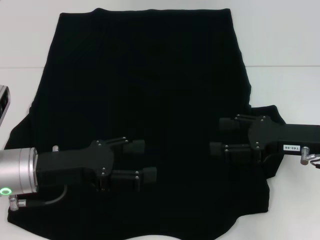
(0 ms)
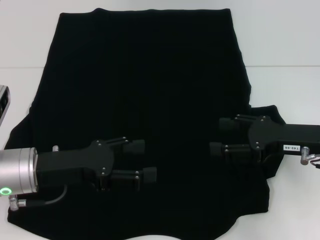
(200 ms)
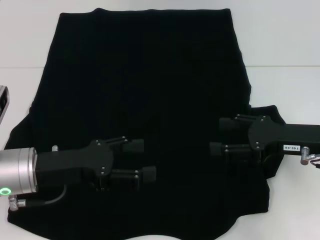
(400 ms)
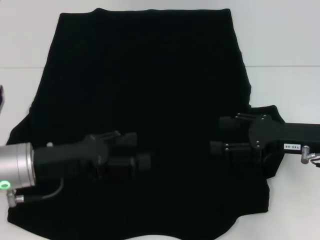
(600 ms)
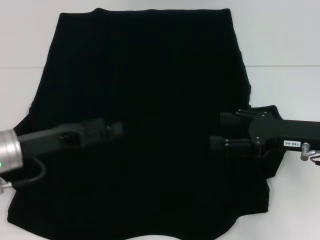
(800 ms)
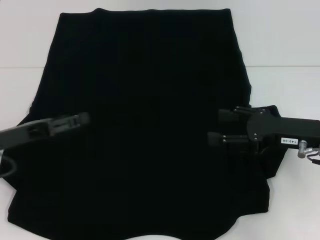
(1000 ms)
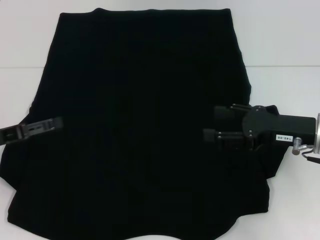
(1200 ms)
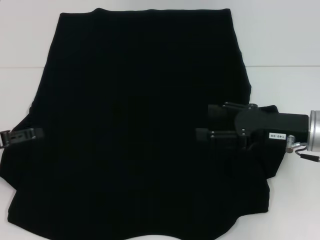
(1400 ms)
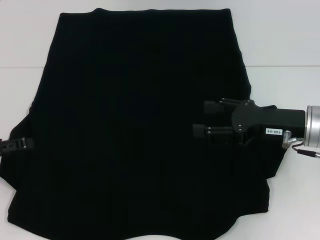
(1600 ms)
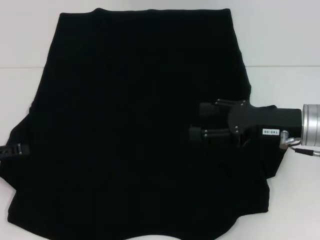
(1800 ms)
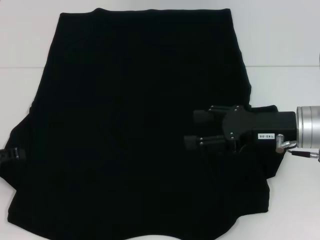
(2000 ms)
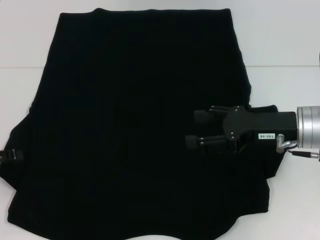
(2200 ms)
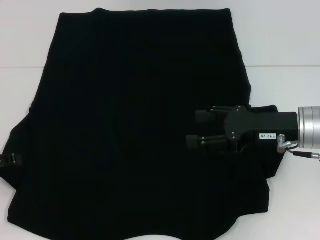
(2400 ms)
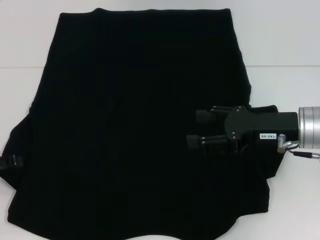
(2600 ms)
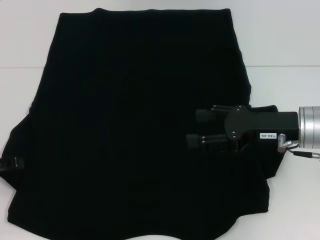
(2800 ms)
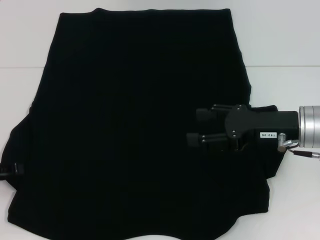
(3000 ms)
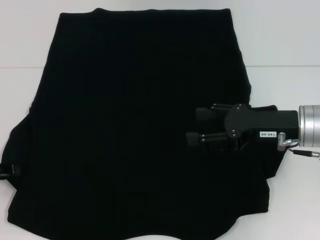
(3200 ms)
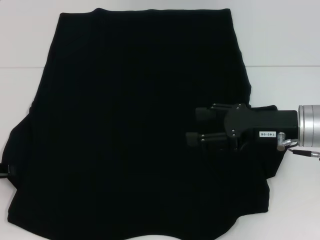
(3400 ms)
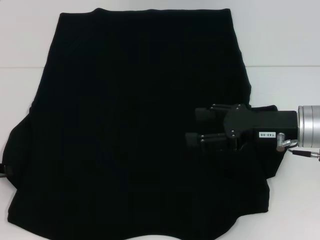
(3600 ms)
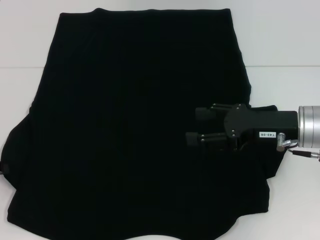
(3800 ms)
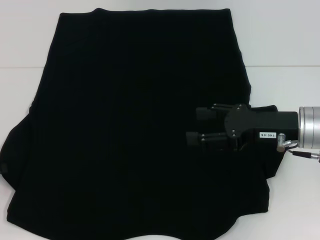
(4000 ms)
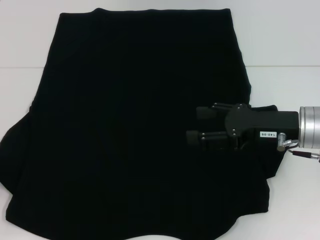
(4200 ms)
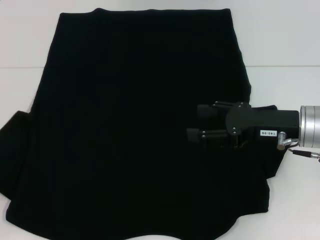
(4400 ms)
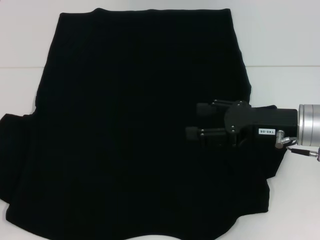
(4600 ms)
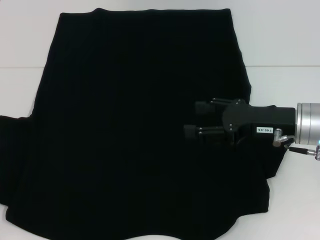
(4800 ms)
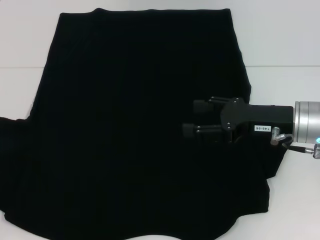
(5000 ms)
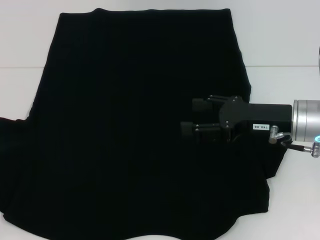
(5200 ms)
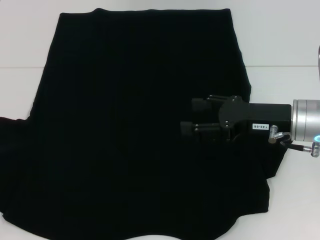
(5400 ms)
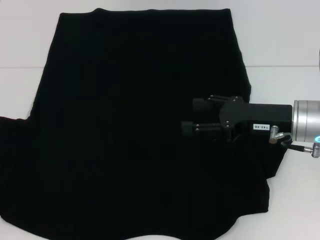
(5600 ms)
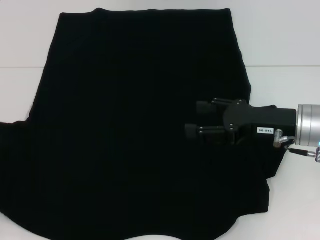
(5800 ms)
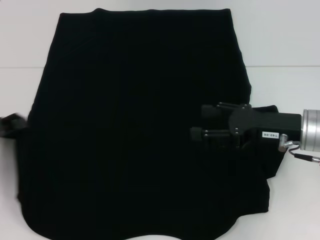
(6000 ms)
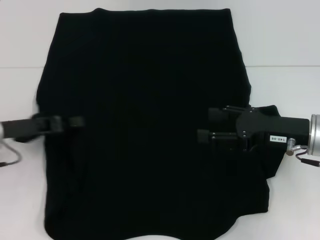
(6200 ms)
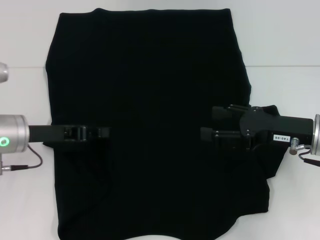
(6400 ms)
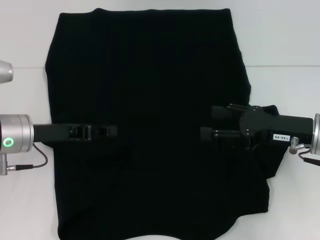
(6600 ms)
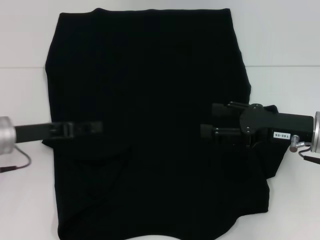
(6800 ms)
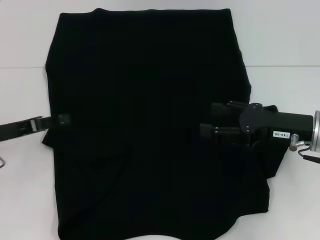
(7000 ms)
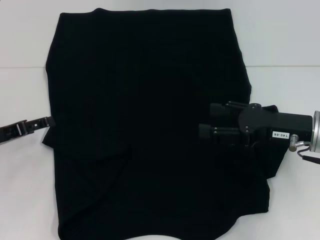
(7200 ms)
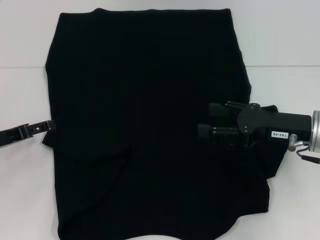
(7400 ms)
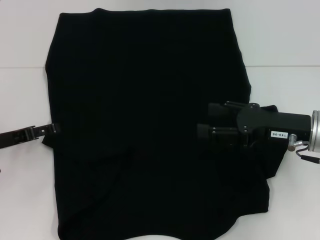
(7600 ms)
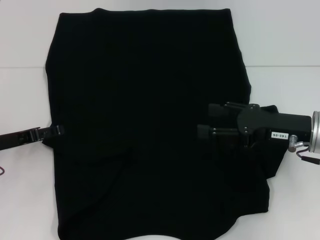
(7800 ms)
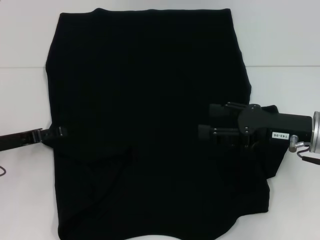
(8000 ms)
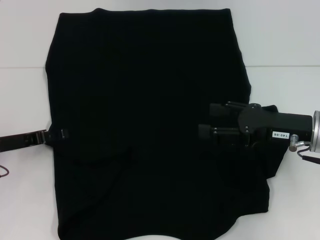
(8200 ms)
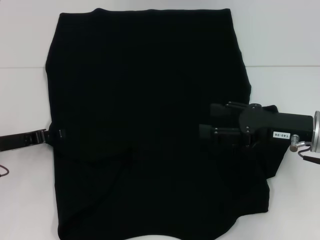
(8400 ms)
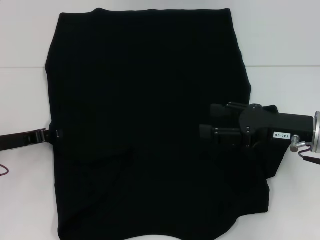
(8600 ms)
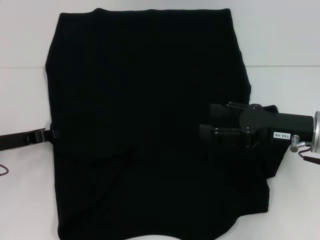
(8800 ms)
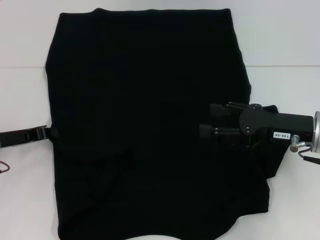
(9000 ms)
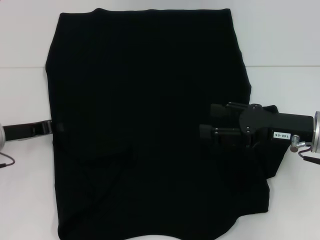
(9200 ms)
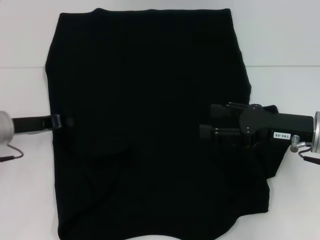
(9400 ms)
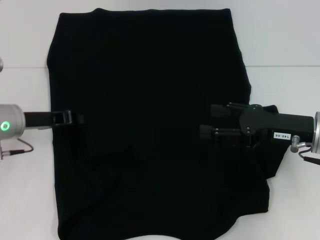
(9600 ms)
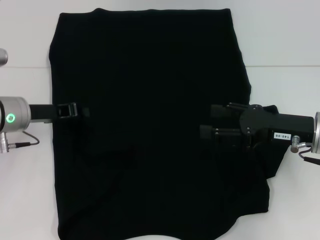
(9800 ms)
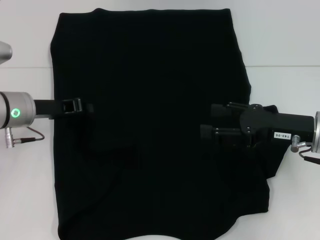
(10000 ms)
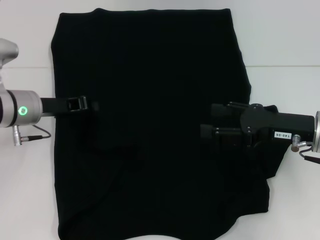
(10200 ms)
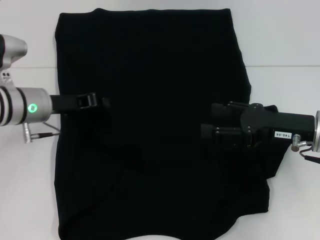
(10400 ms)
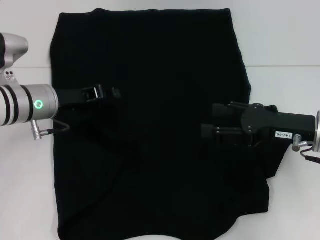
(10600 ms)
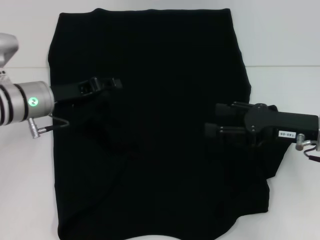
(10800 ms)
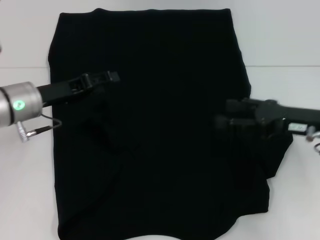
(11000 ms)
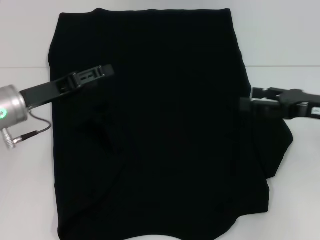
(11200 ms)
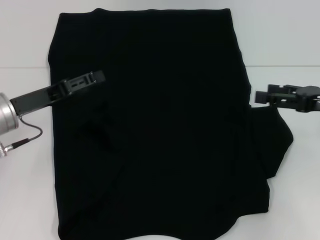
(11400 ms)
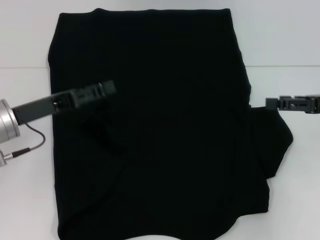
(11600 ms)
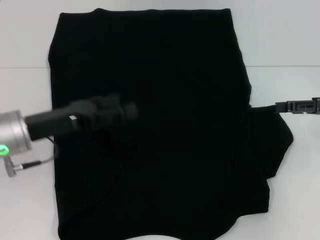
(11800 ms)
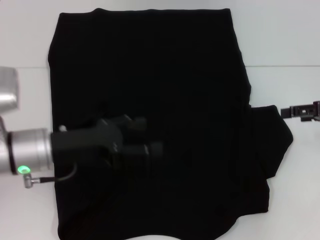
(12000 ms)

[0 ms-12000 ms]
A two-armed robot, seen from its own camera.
Step, 0 ms to 6600 ms: Fold the clothes with your left hand.
0 ms to 1600 ms: The left gripper is displaced to the left by approximately 15 cm.
1600 ms to 3000 ms: The grippers move only a little.
3000 ms to 4400 ms: The left gripper closes up.
4400 ms to 6000 ms: The left gripper shifts by about 5 cm.
6000 ms to 7600 ms: The left gripper goes to the right and returns, roughly 10 cm each way, and opens.
9000 ms to 10400 ms: The left gripper is displaced to the right and forward by approximately 10 cm.
10400 ms to 12000 ms: The left gripper travels backward by about 10 cm, and opens up. Meanwhile the right gripper is displaced to the right by approximately 10 cm.

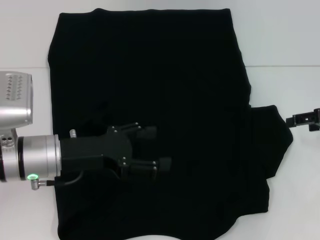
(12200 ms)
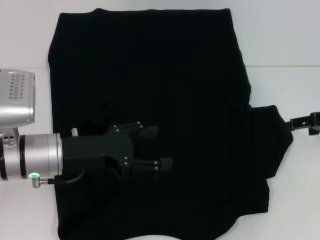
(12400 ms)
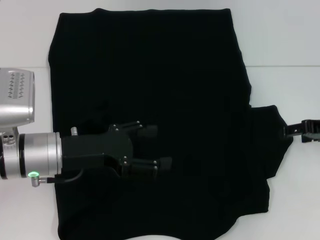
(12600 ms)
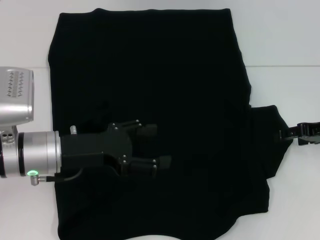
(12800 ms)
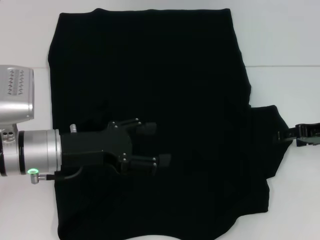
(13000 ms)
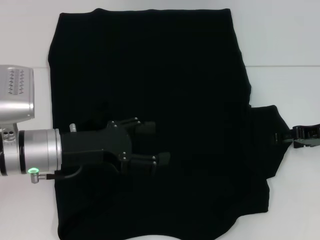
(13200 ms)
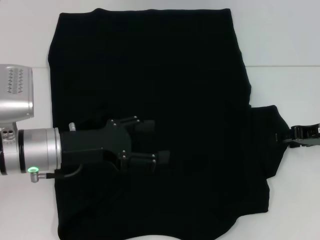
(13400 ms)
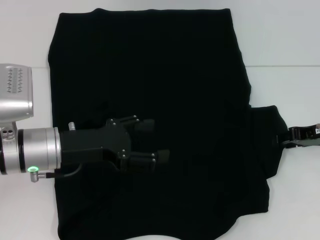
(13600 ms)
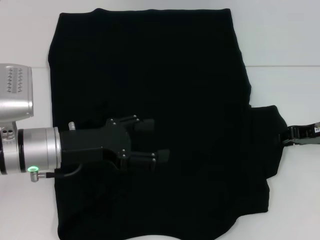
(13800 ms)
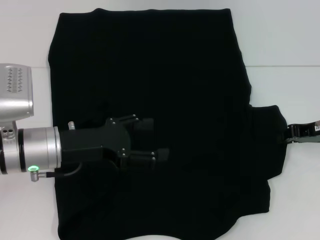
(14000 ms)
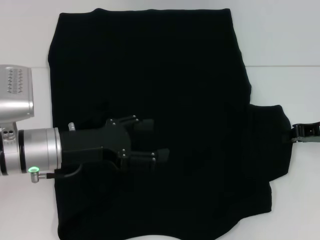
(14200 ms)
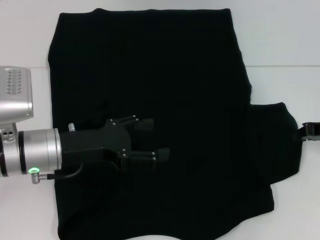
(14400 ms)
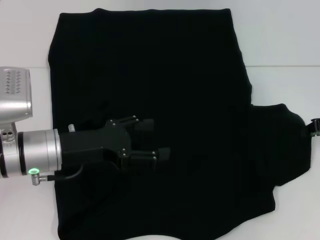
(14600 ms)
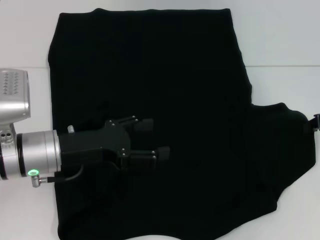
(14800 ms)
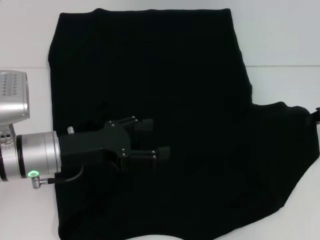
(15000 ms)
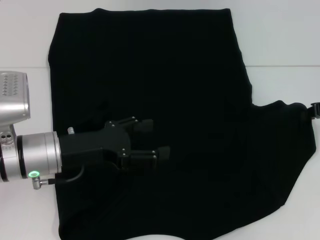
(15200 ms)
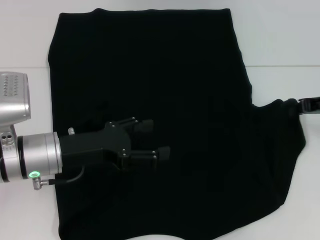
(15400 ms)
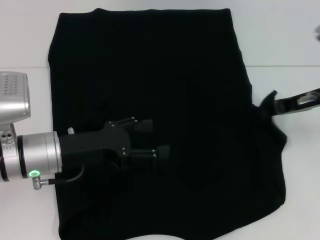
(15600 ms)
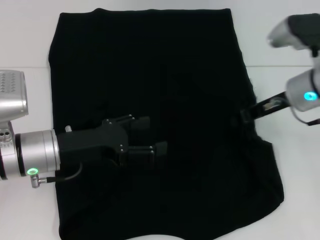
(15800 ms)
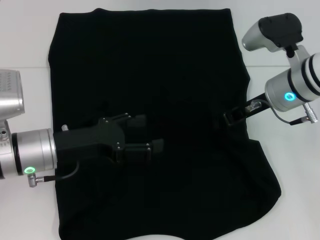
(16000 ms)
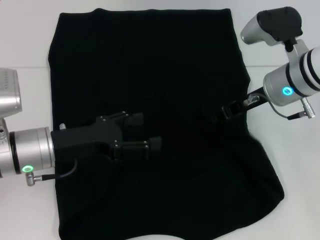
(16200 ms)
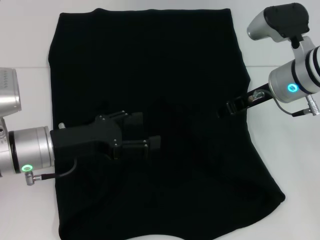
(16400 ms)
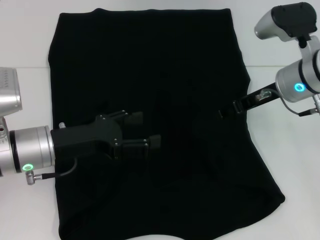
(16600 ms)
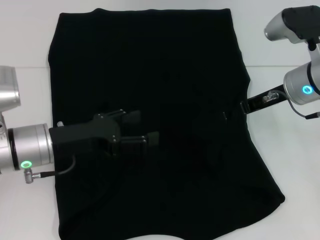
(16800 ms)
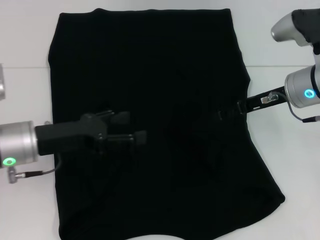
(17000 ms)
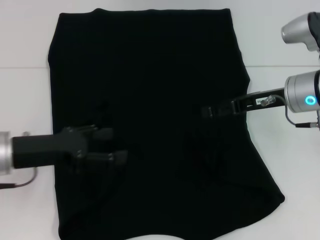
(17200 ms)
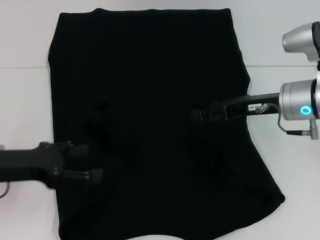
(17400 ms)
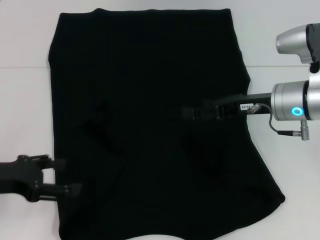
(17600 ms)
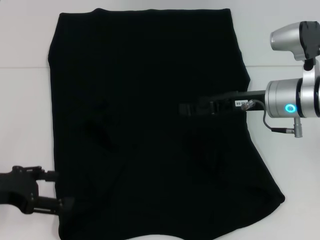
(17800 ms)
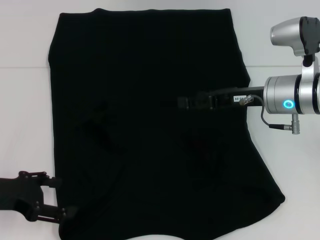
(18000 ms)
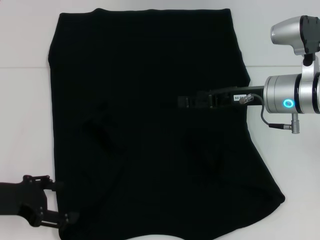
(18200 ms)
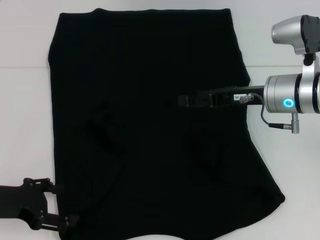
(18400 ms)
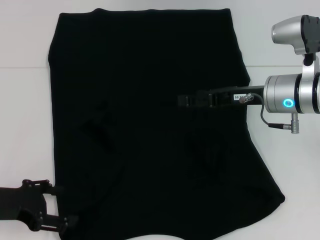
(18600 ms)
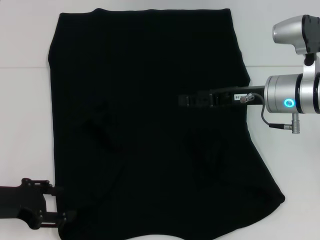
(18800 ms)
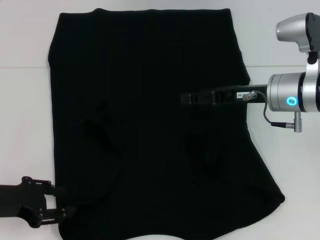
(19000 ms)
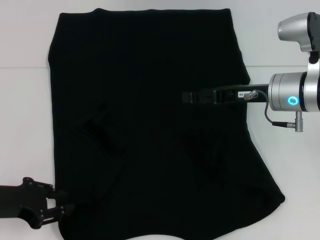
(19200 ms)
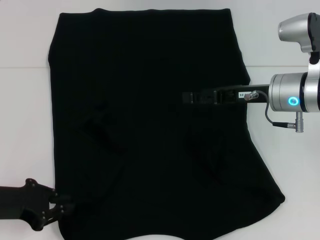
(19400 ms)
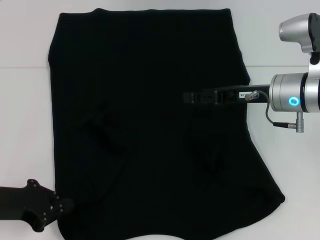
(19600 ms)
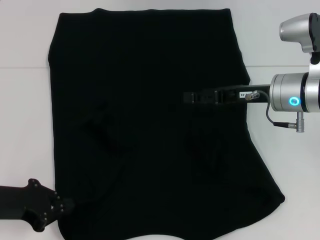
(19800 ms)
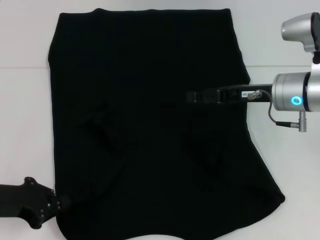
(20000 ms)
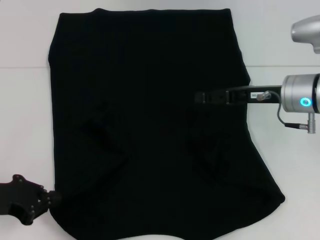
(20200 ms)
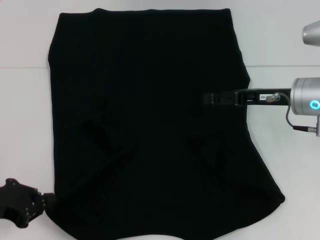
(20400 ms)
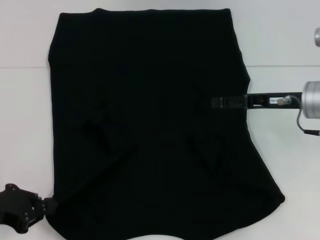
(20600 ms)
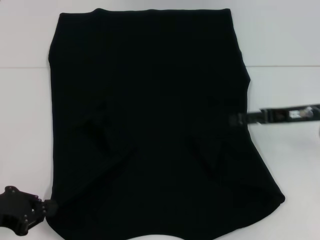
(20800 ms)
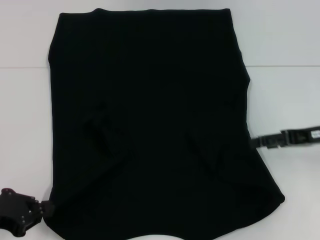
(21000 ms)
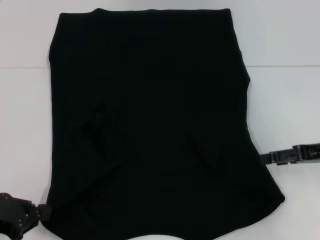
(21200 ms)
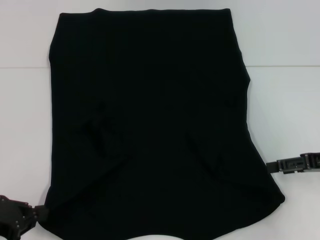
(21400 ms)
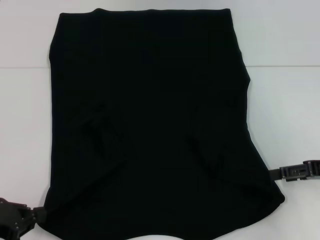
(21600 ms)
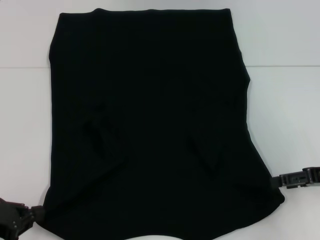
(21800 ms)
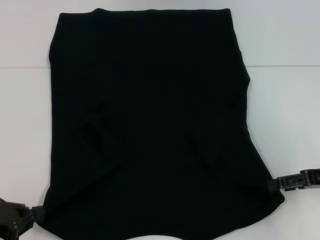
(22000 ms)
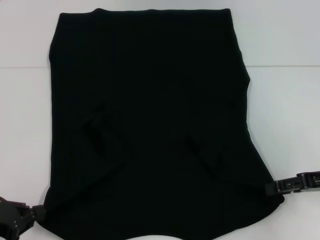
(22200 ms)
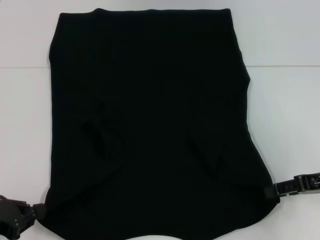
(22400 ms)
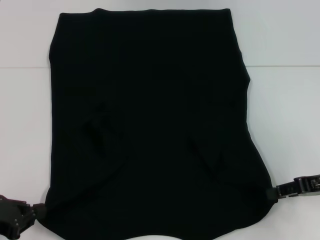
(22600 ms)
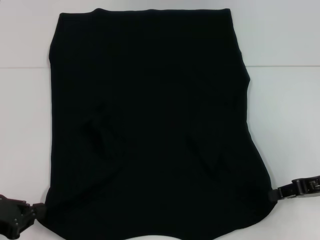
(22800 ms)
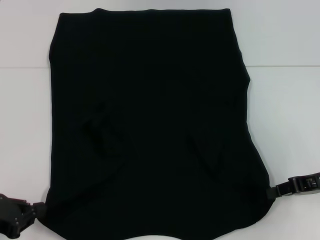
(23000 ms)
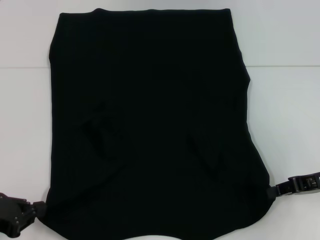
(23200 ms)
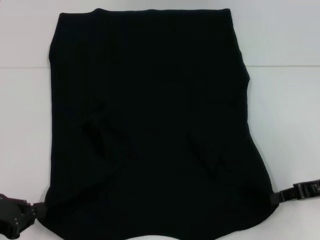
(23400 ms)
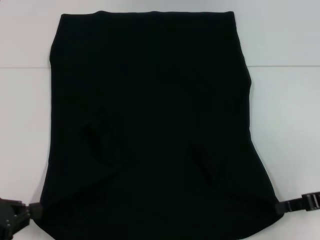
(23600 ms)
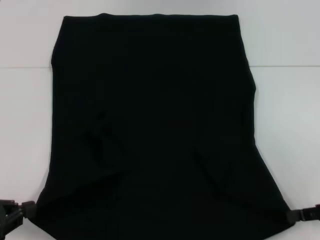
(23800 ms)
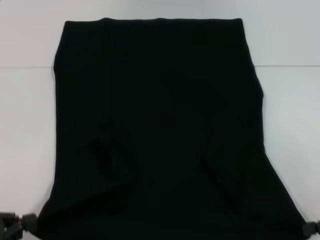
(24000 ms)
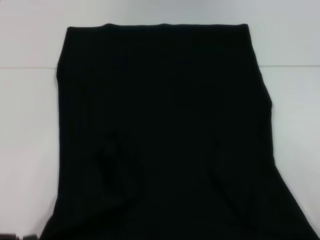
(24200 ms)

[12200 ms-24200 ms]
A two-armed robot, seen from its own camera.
Step, 12200 ms to 16200 ms: Fold the clothes with your right hand.
Step, 16400 ms to 19800 ms: Grab the bottom left corner with your left hand.
Step, 20000 ms to 22600 ms: Grab the bottom right corner with your right hand.
12200 ms to 13800 ms: The right gripper ends up some 5 cm from where it was, and closes its fingers.
13800 ms to 15200 ms: The right gripper closes its fingers.
15200 ms to 16600 ms: The right gripper is displaced to the left by roughly 15 cm, and opens.
16600 ms to 18200 ms: The left gripper heads to the left and backward, covering approximately 10 cm, while the right gripper opens.
18200 ms to 19800 ms: The left gripper closes its fingers.
19800 ms to 21200 ms: The left gripper shifts by about 5 cm; the right gripper goes approximately 15 cm to the right and backward.
21200 ms to 22600 ms: The grippers move only a little.
22600 ms to 24200 ms: The right gripper moves backward and to the right, about 10 cm, and closes up; the left gripper travels backward by about 5 cm.
